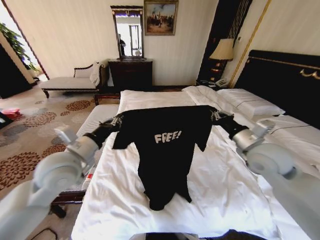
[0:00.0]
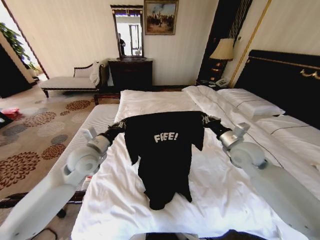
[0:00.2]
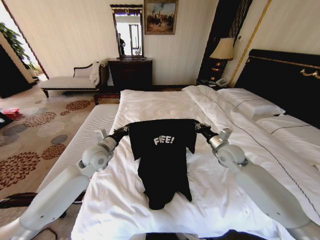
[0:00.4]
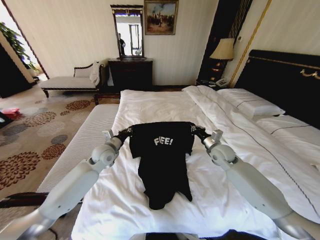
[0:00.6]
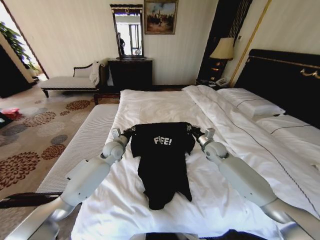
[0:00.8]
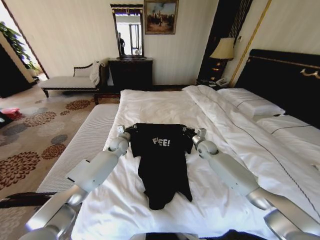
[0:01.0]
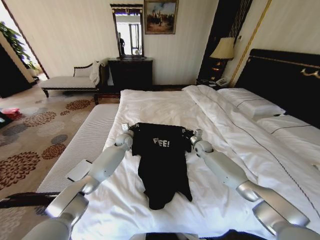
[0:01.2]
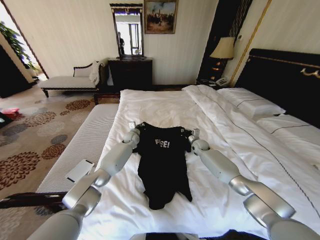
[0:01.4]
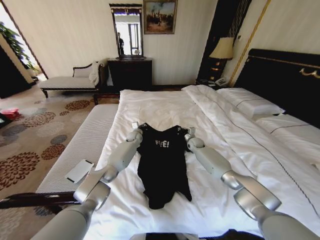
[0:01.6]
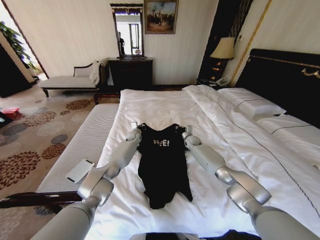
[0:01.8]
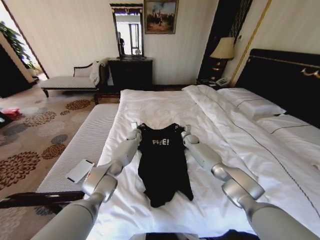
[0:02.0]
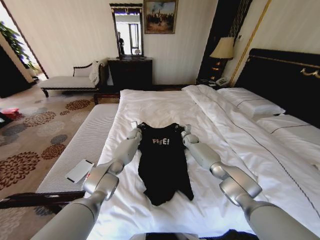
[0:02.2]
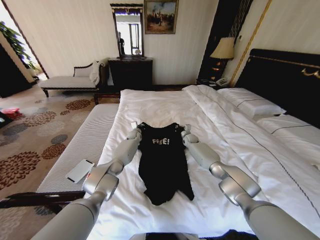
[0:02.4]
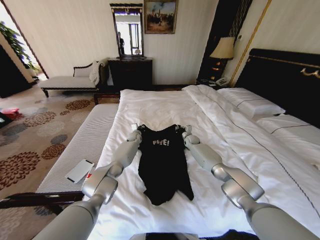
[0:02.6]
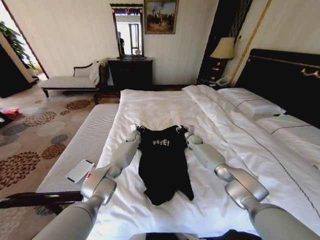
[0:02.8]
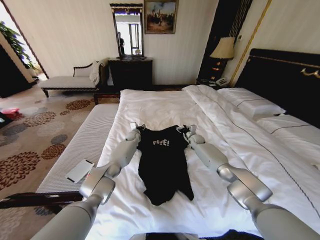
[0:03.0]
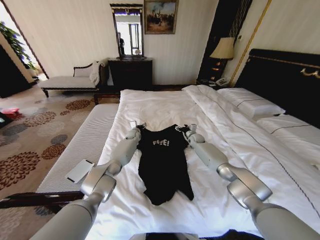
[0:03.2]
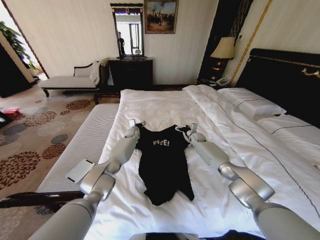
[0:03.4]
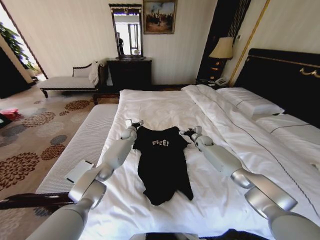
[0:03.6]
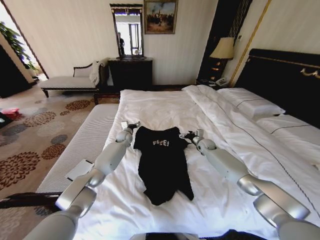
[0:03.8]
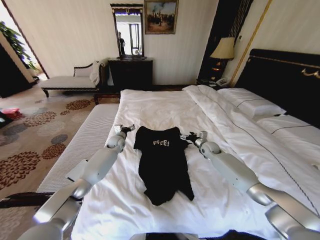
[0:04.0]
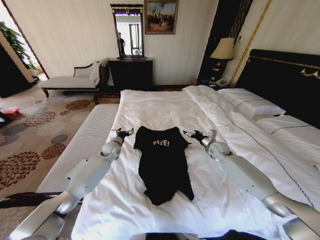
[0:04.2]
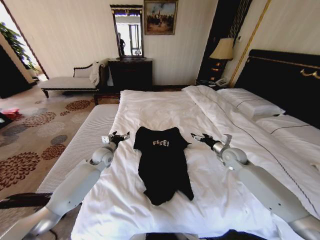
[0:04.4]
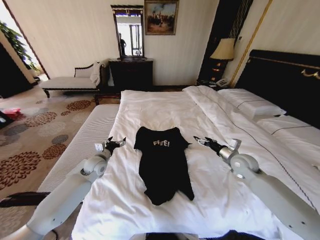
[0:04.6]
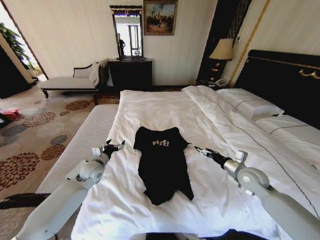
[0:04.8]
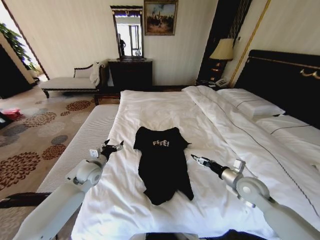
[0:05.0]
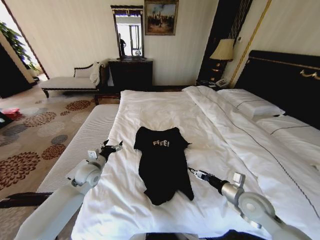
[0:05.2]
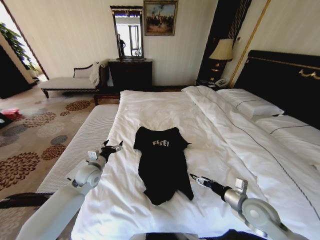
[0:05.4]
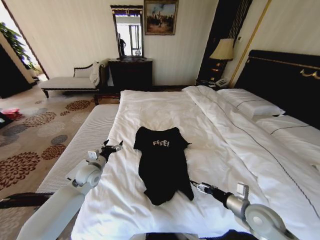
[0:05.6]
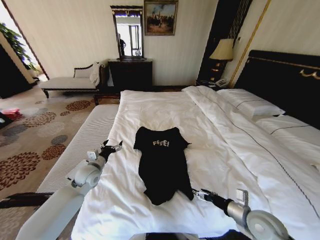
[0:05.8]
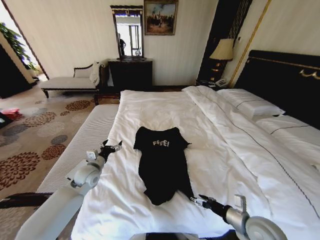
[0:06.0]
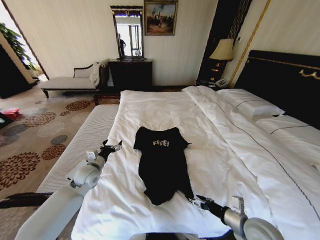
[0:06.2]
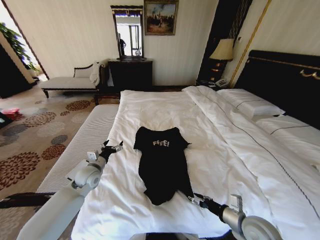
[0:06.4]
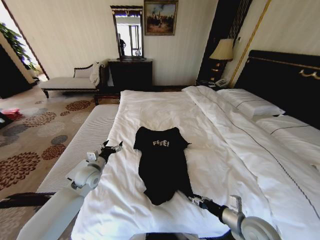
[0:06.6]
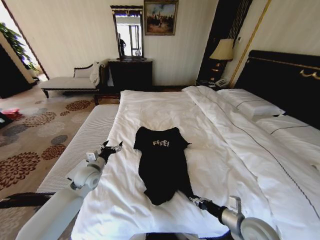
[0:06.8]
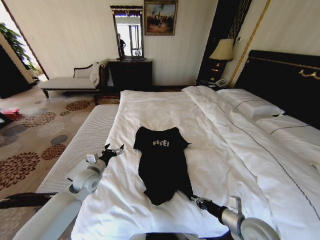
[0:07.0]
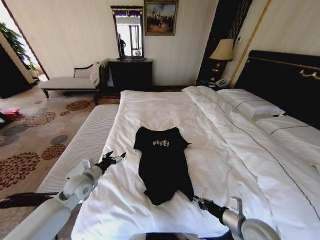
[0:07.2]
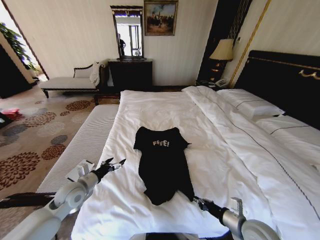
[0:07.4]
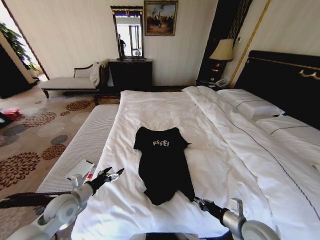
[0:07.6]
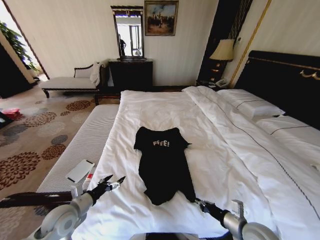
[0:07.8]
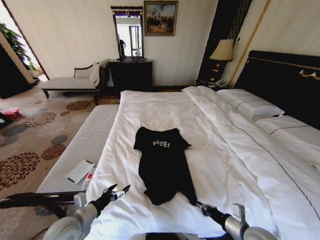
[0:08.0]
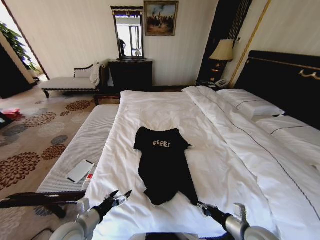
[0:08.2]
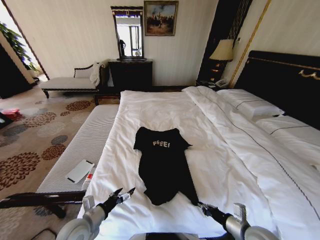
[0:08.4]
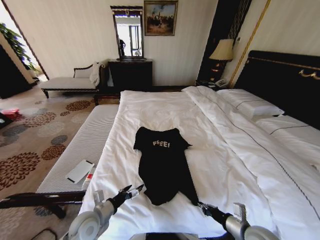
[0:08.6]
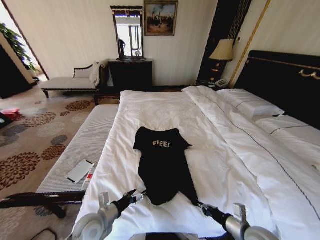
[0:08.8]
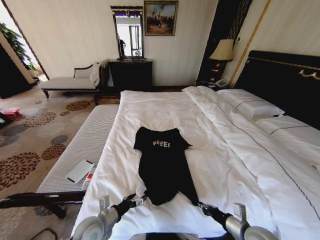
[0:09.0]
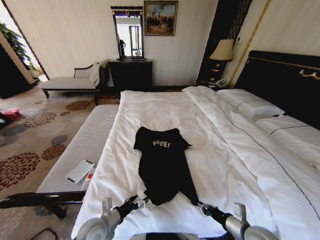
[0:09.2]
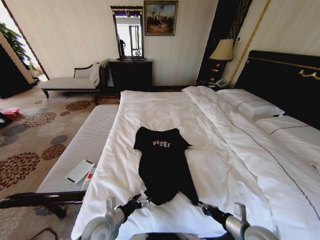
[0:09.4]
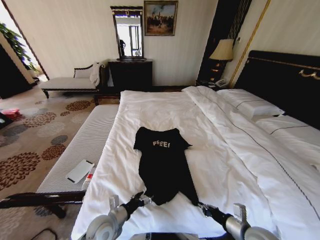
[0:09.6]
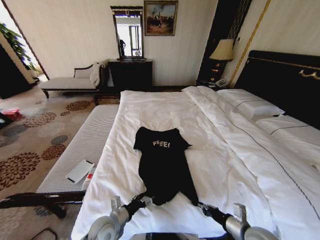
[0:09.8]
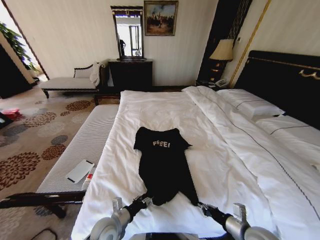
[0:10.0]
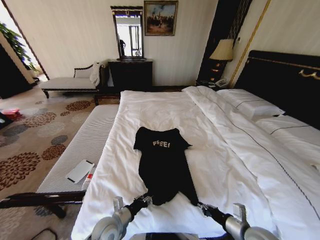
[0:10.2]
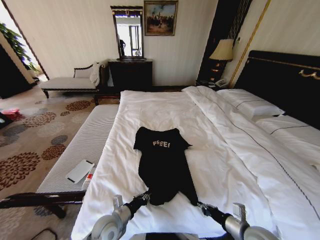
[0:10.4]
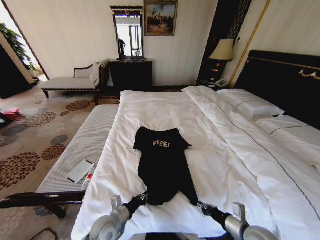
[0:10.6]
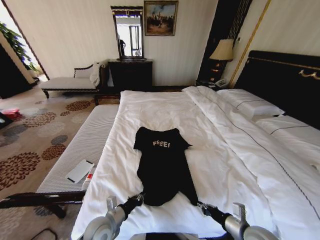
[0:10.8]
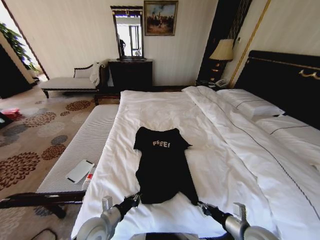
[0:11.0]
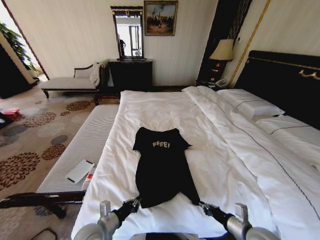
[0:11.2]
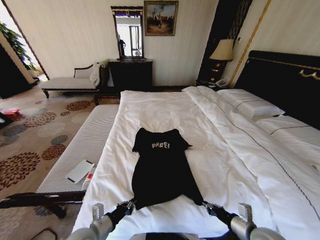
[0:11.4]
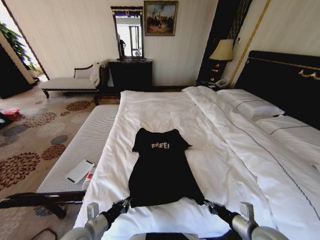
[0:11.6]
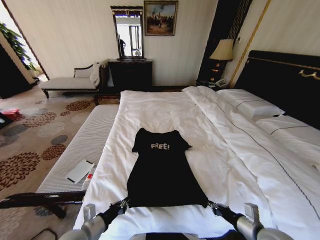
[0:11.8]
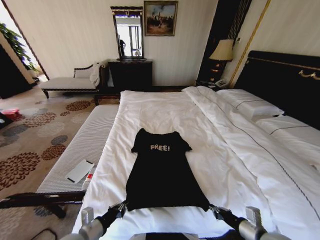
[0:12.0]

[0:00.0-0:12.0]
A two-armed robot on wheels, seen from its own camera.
Task of the whole recording: Fold the clothes on the bed.
0:00.0 to 0:01.6: Both grippers move forward and downward, about 40 cm.
0:01.6 to 0:03.0: The right gripper opens up, while the left gripper opens up.
0:03.0 to 0:04.4: The right gripper heads backward, to the right and upward, covering approximately 20 cm, and opens its fingers. Meanwhile the left gripper travels backward and to the left by approximately 20 cm, and opens up.
0:04.4 to 0:06.0: The right gripper moves backward, approximately 30 cm. The left gripper is displaced backward by roughly 10 cm.
0:06.0 to 0:07.6: The right gripper closes up; the left gripper goes approximately 10 cm backward.
0:07.6 to 0:09.0: The left gripper travels to the right, backward and downward by approximately 15 cm.
0:09.0 to 0:10.4: The left gripper moves some 5 cm, and closes its fingers.
0:10.4 to 0:12.0: The left gripper is displaced to the left, backward and upward by some 10 cm.

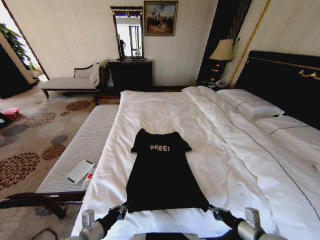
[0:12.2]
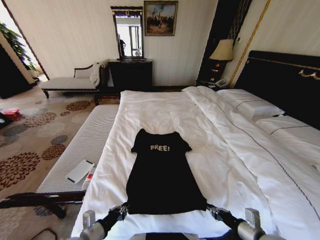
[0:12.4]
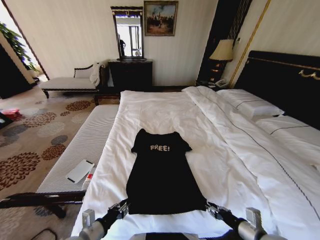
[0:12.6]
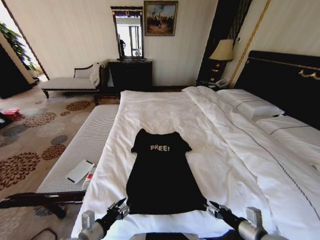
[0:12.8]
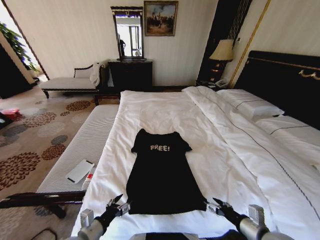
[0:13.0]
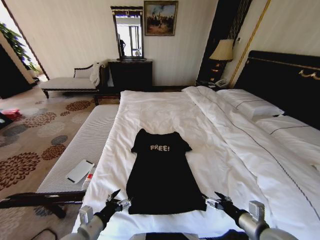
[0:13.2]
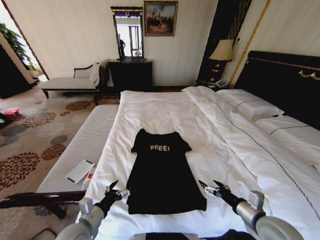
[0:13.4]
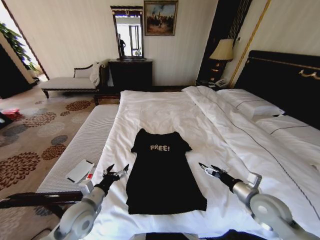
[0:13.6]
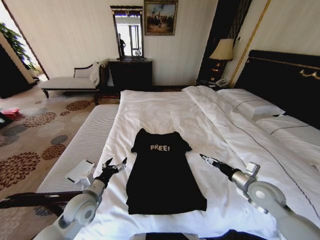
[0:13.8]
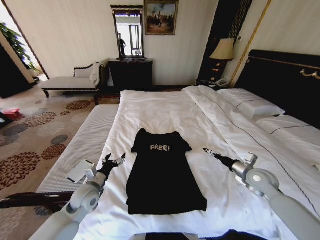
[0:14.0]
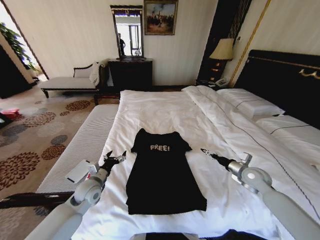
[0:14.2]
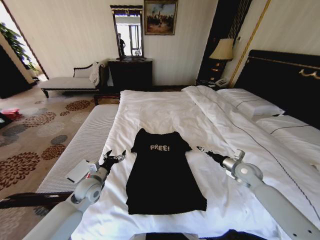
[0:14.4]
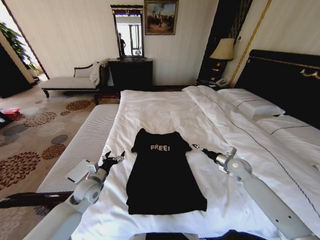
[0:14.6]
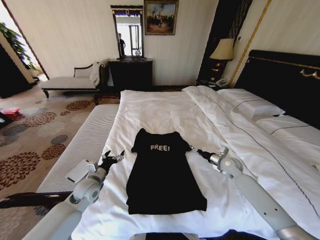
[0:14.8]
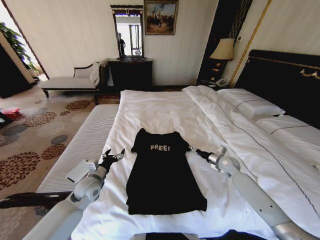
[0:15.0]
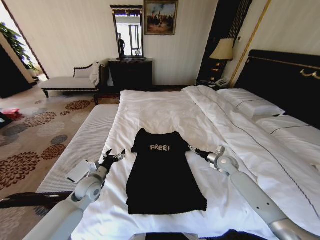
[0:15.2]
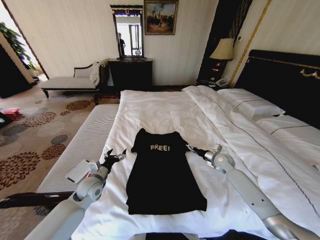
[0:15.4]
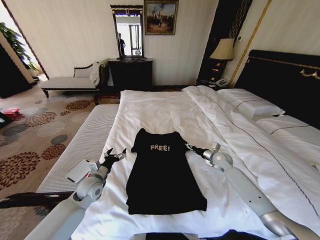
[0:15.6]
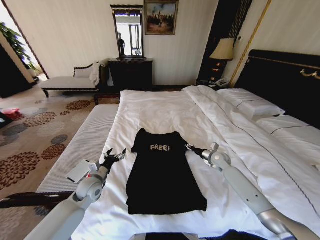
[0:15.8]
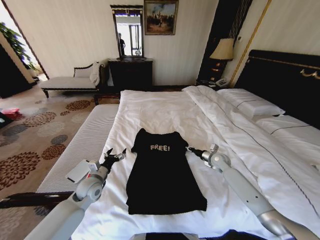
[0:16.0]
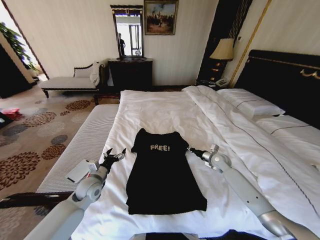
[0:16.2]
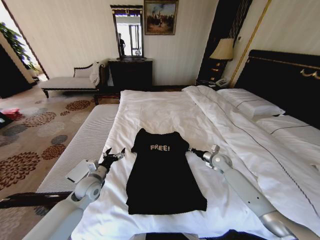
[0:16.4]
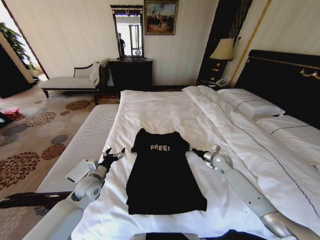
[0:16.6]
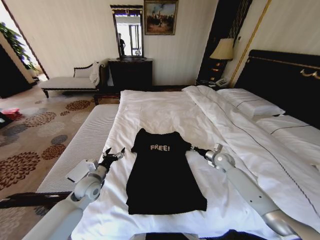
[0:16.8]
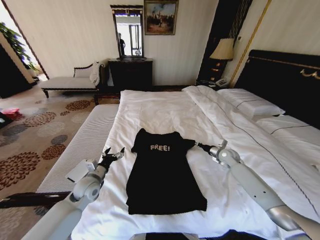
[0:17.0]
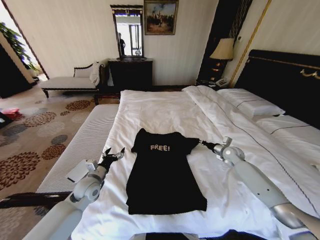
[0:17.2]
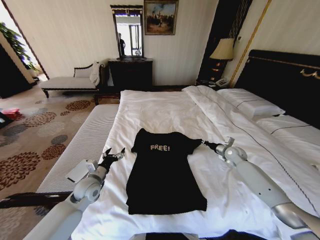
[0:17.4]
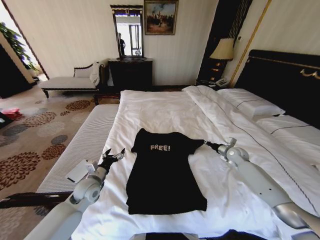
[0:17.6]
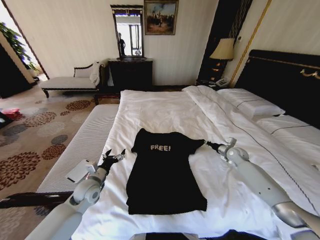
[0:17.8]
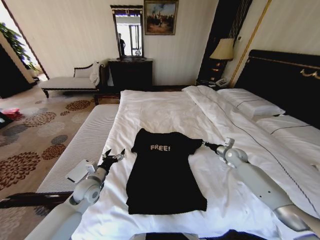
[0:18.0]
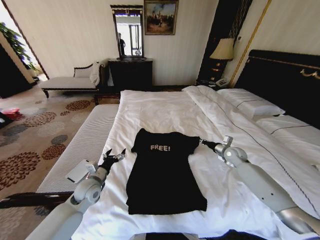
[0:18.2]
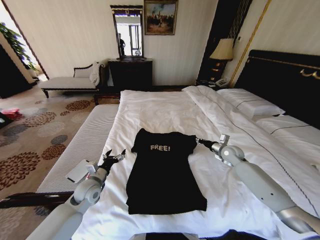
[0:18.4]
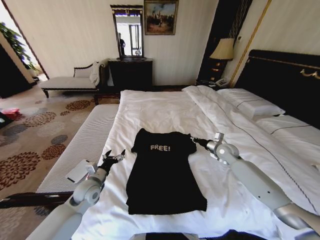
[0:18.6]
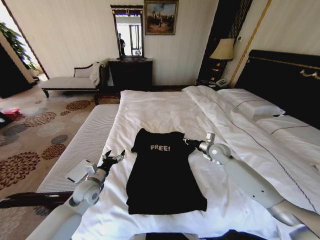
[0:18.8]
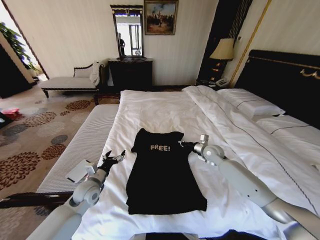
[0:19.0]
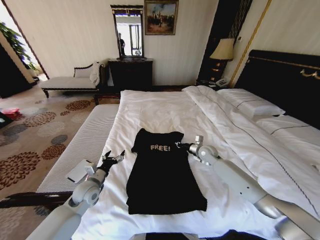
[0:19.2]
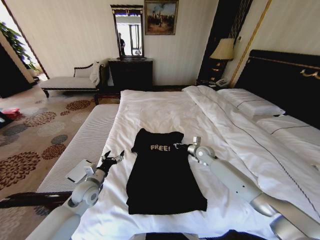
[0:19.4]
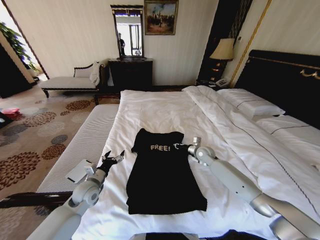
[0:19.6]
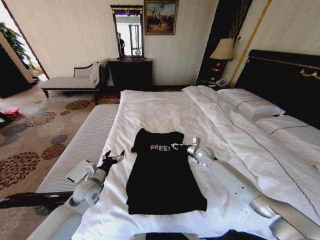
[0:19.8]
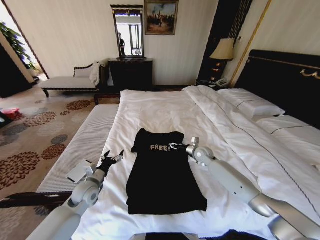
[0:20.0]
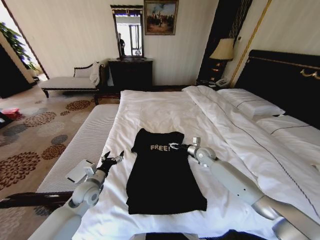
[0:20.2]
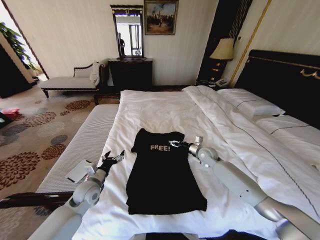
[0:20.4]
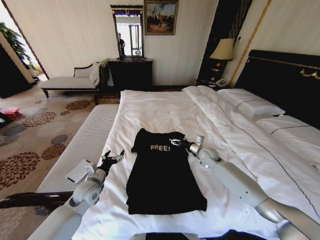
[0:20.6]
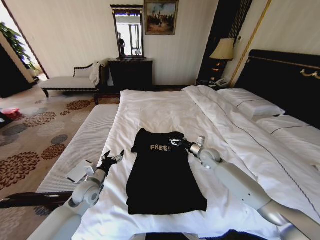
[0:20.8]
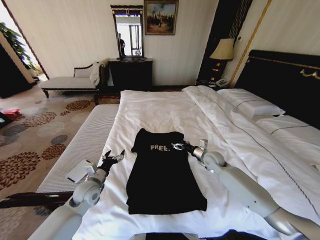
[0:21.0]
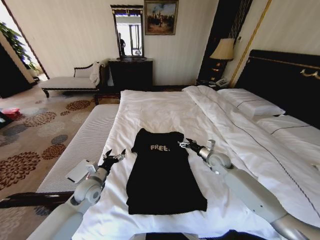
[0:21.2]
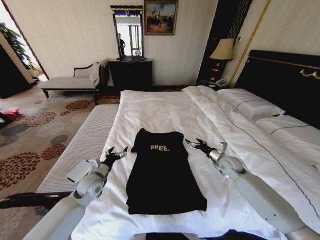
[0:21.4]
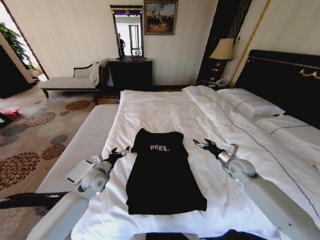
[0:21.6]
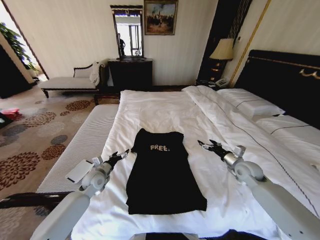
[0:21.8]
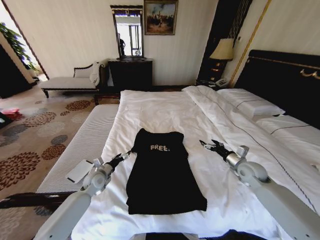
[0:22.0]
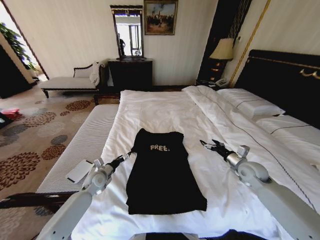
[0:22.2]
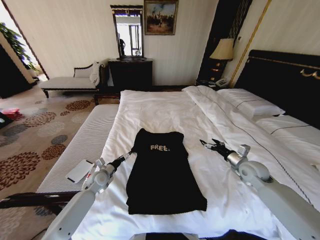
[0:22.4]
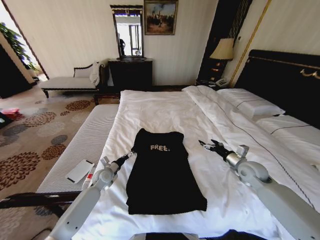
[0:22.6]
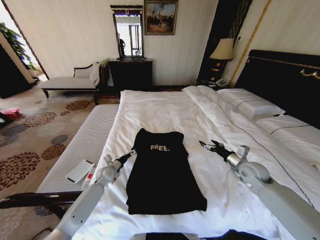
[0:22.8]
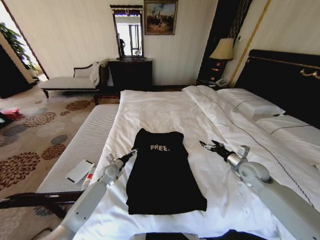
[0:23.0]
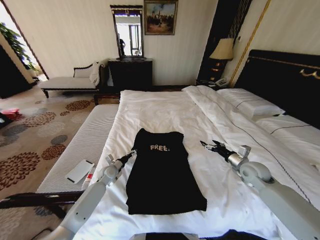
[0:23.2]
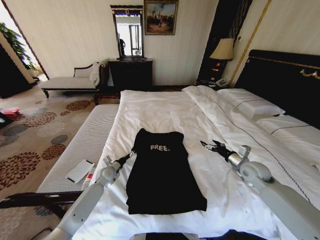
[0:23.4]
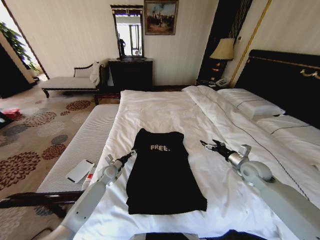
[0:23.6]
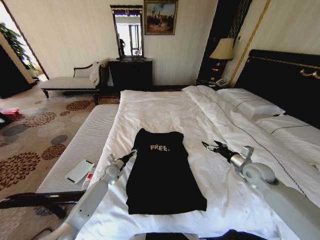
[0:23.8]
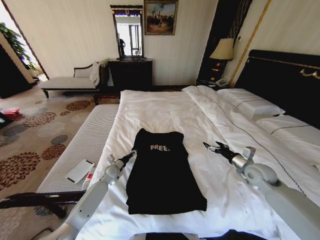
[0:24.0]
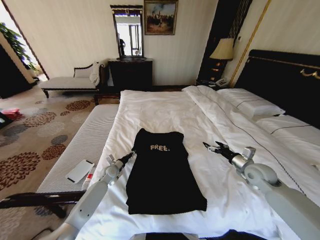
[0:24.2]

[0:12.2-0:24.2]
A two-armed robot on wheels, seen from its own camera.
Task of the whole recording: Fold the clothes on the bed.
0:12.2 to 0:13.8: The grippers both shift forward by some 15 cm. The right gripper opens up, while the left gripper opens up.
0:13.8 to 0:15.2: The left gripper heads forward, covering roughly 5 cm. Meanwhile the right gripper travels forward and downward by some 20 cm.
0:15.2 to 0:16.6: The right gripper closes up.
0:16.6 to 0:18.2: The right gripper heads upward and to the right, covering some 5 cm.
0:18.2 to 0:19.8: The right gripper goes approximately 15 cm to the left.
0:19.8 to 0:21.2: The right gripper changes place by about 5 cm, and opens up.
0:21.2 to 0:22.6: The left gripper goes about 10 cm forward and downward; the right gripper heads to the right and backward, covering some 10 cm.
0:22.6 to 0:24.2: The left gripper closes its fingers.
